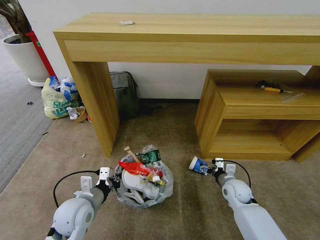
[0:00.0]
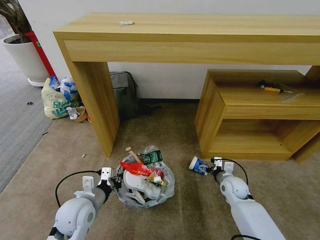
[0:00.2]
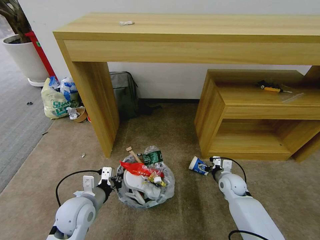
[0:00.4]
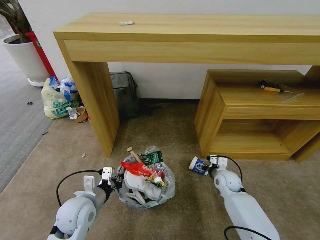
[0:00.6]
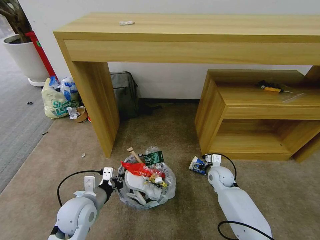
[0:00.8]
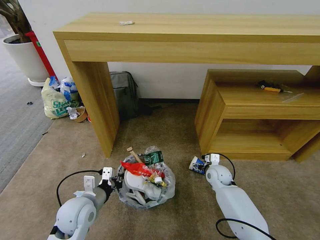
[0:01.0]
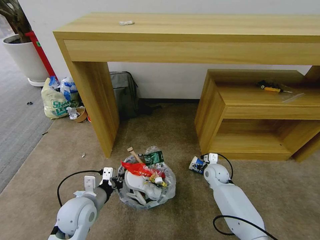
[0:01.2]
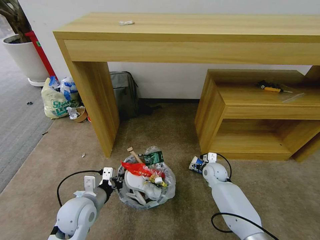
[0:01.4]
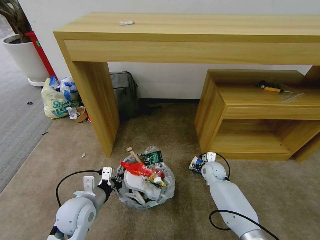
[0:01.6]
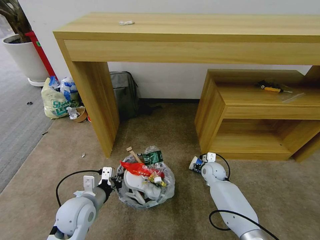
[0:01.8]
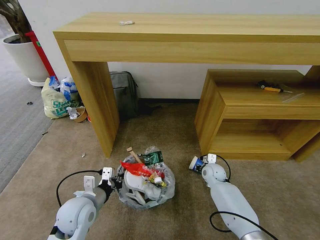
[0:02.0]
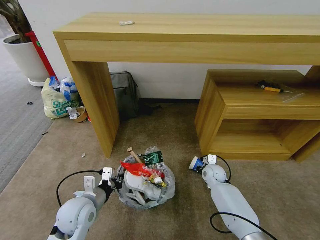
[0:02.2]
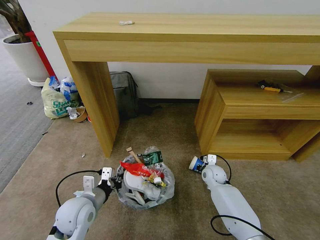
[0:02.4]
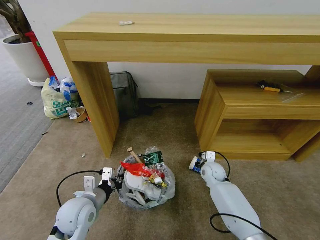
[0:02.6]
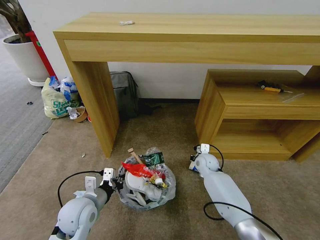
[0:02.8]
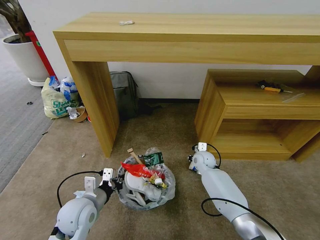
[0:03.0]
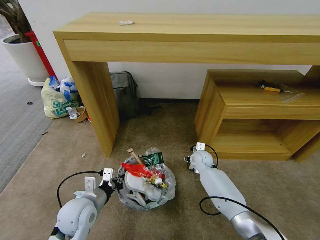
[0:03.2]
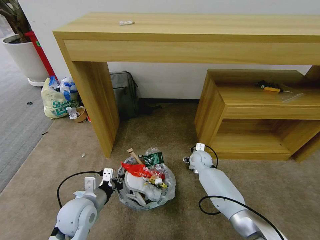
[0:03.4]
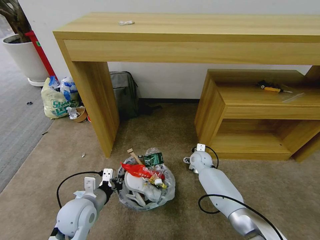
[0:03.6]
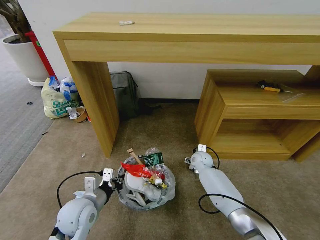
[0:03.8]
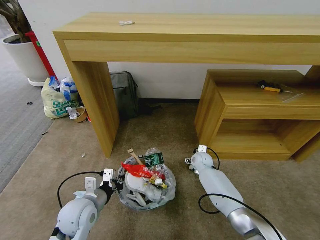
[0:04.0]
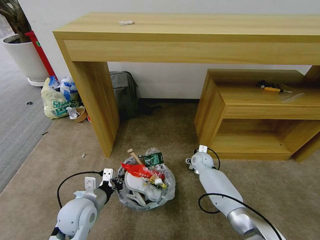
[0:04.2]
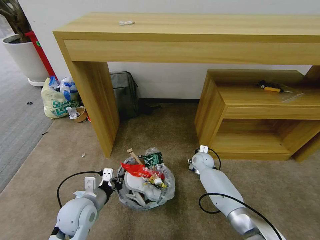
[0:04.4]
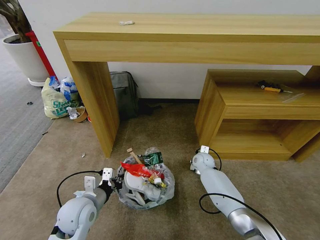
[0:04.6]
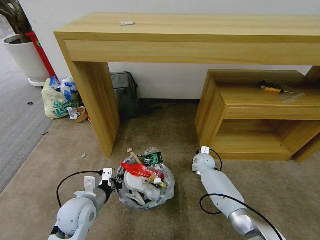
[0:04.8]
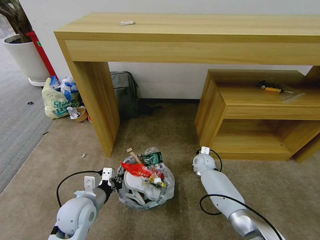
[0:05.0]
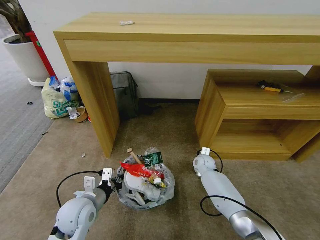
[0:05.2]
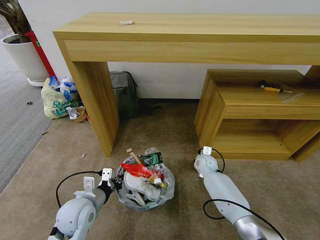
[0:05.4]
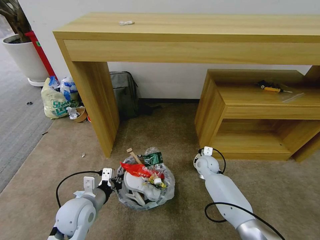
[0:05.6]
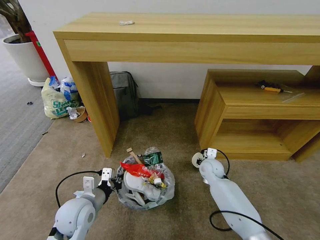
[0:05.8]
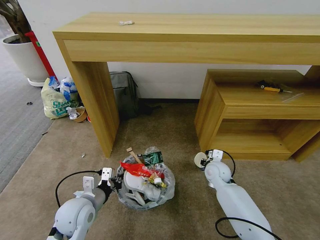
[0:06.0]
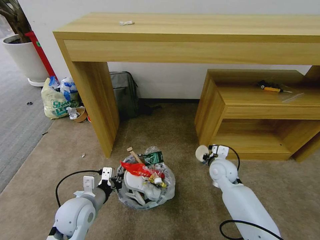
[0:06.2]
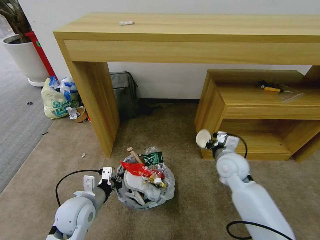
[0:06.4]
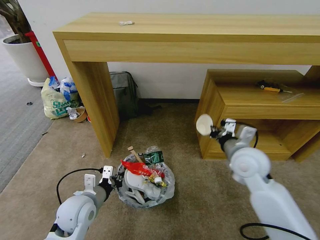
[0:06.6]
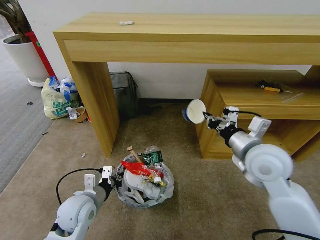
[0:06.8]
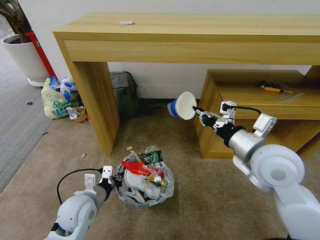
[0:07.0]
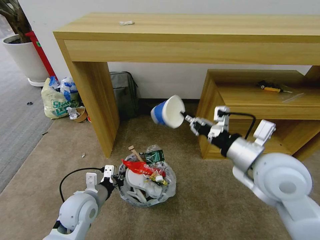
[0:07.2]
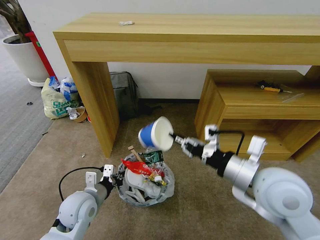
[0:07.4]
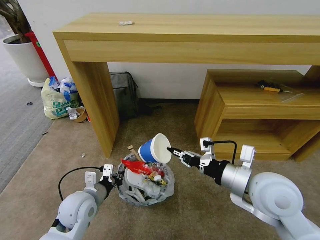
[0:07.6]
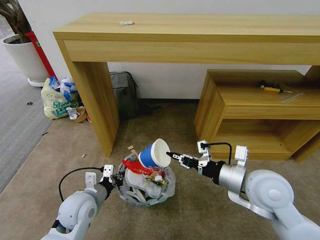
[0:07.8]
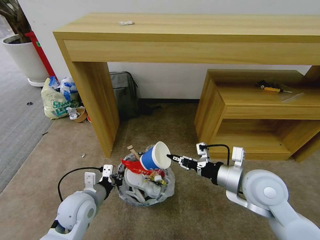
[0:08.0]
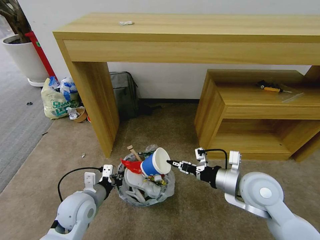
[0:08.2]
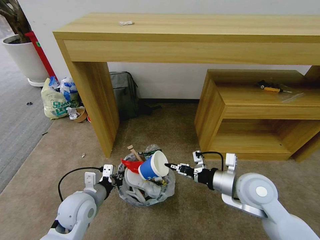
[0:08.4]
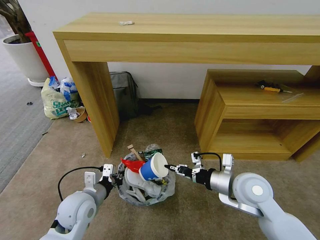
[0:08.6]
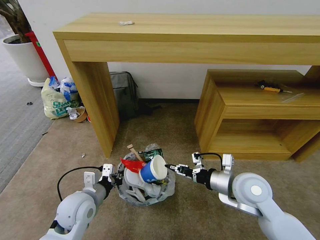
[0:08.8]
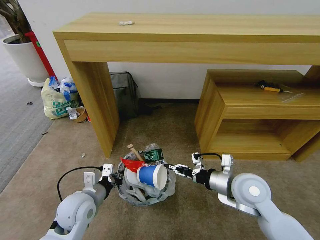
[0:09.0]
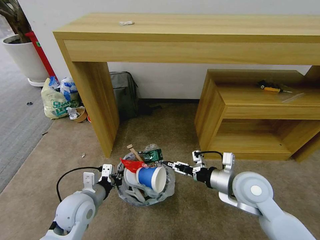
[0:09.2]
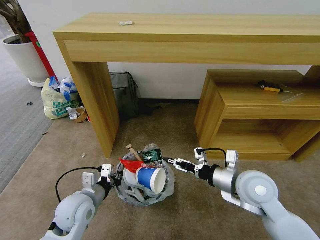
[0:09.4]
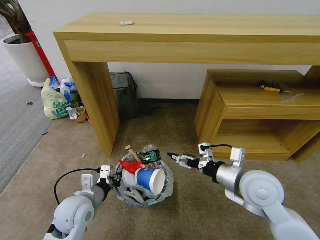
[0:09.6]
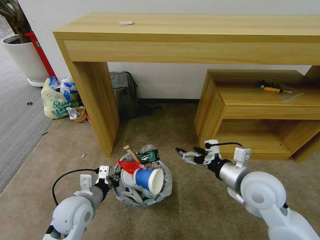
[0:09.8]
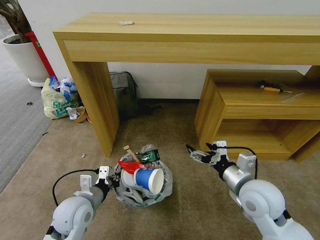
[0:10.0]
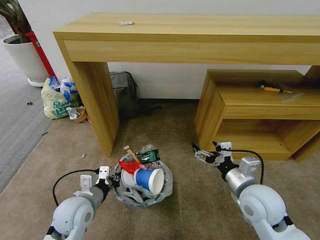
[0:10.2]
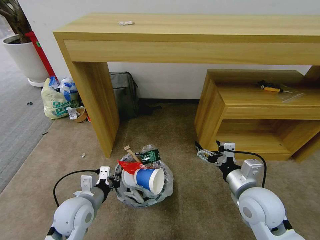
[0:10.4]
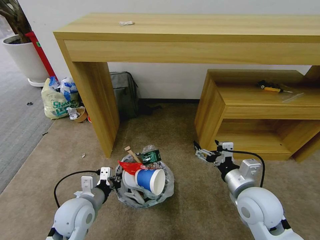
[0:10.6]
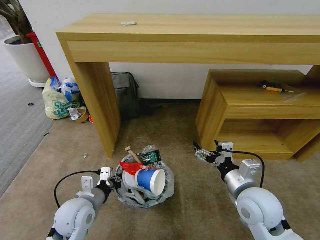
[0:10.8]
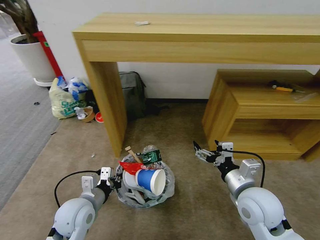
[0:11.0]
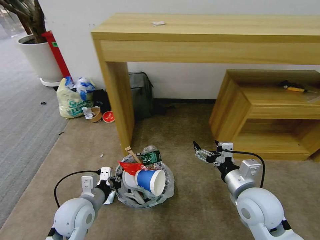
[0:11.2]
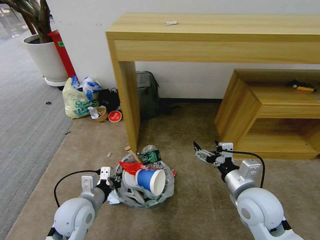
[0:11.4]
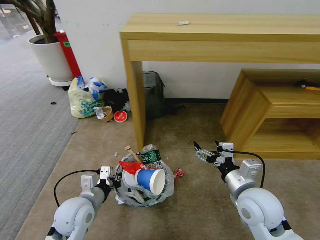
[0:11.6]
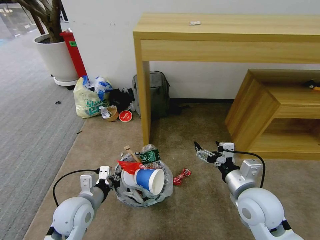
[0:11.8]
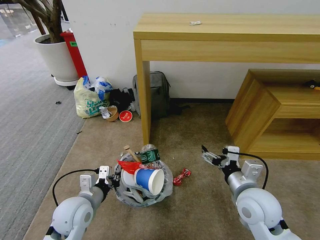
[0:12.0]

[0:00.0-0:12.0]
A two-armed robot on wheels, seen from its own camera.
Task of the whole recording: Pick up the trash bin and place the garbage on the floor into it.
0:00.0 to 0:01.6: The right gripper travels forward and to the left by about 10 cm.
0:01.6 to 0:03.0: The right gripper shifts by some 5 cm, and closes up.
0:03.0 to 0:04.4: The right gripper opens up.
0:04.4 to 0:06.0: The right gripper travels backward and upward by approximately 10 cm, and closes up.
0:06.0 to 0:07.6: The right gripper shifts approximately 30 cm upward and backward.
0:07.6 to 0:09.0: The right gripper goes approximately 10 cm downward.
0:09.0 to 0:10.4: The right gripper opens.

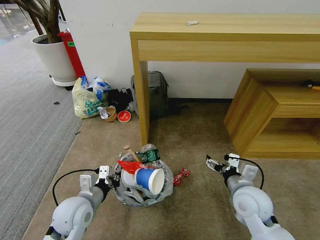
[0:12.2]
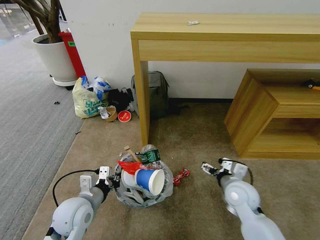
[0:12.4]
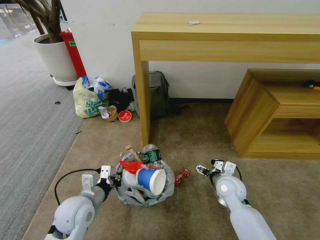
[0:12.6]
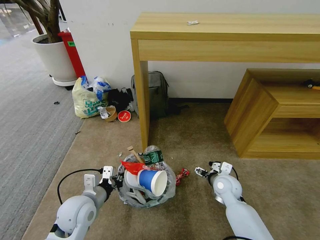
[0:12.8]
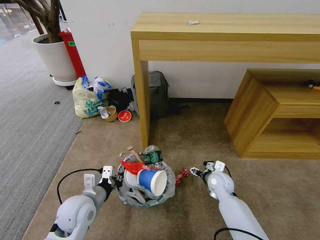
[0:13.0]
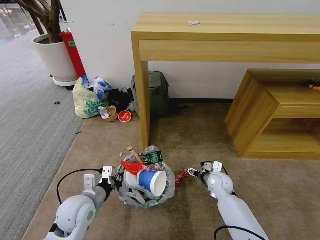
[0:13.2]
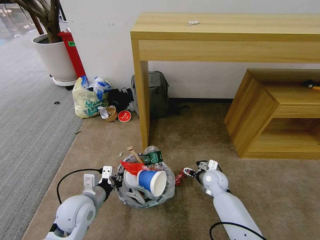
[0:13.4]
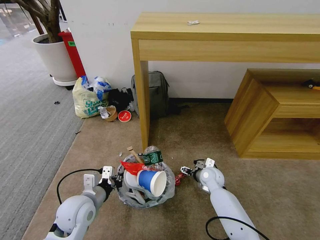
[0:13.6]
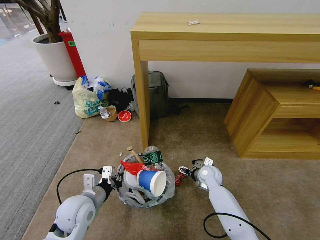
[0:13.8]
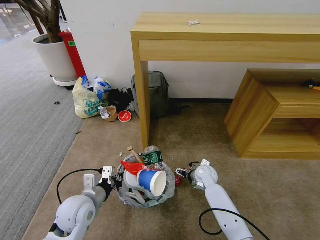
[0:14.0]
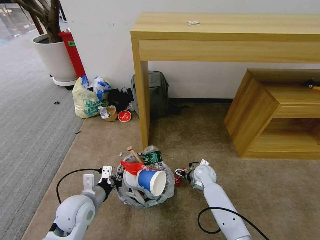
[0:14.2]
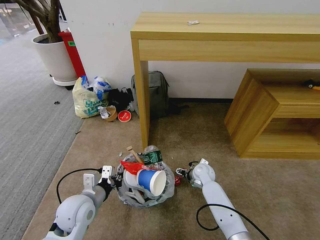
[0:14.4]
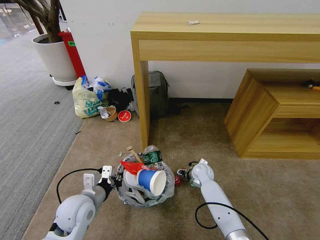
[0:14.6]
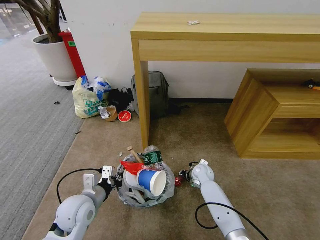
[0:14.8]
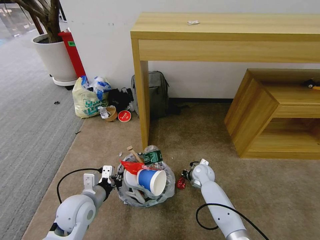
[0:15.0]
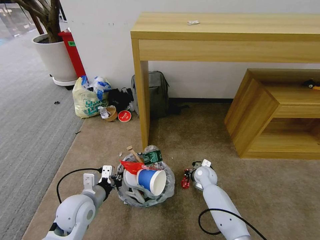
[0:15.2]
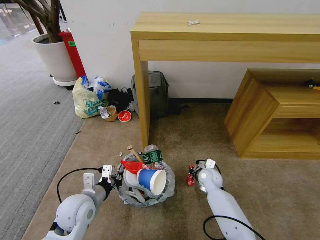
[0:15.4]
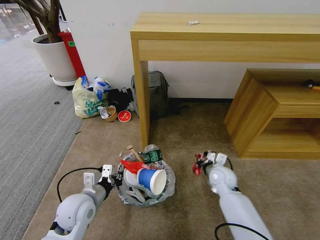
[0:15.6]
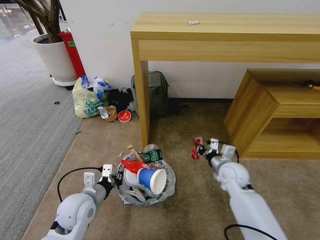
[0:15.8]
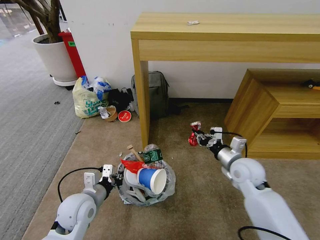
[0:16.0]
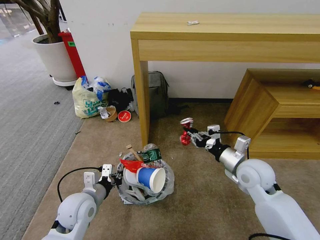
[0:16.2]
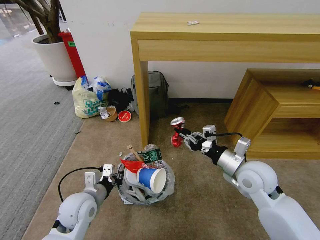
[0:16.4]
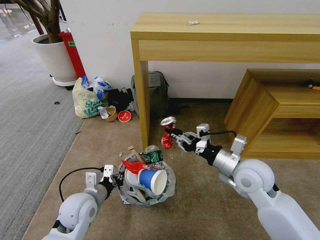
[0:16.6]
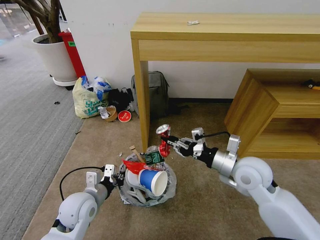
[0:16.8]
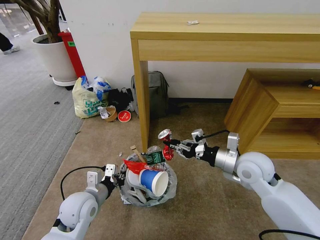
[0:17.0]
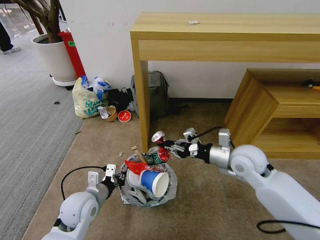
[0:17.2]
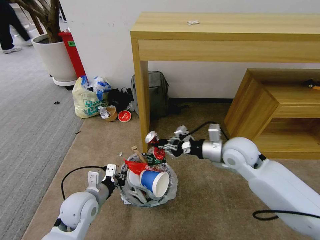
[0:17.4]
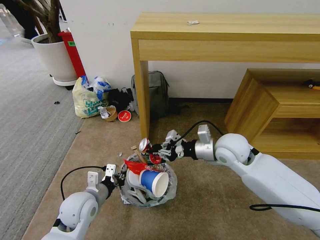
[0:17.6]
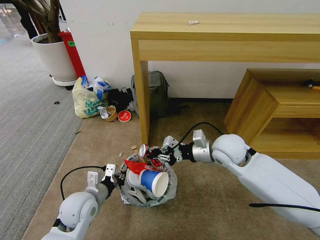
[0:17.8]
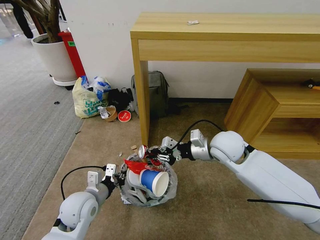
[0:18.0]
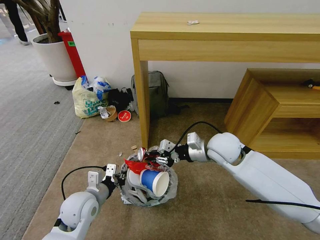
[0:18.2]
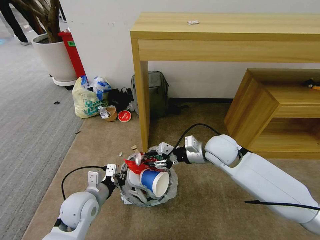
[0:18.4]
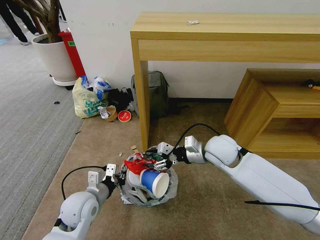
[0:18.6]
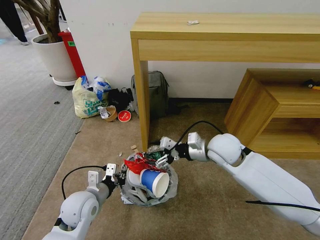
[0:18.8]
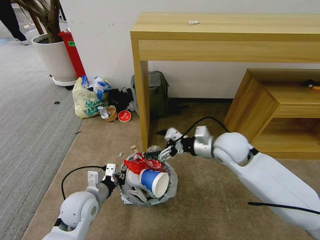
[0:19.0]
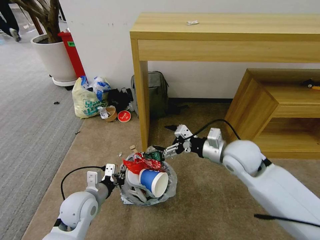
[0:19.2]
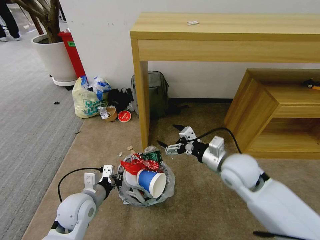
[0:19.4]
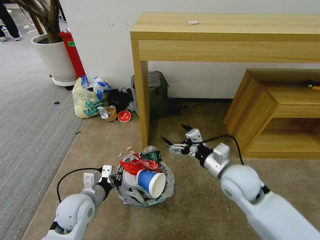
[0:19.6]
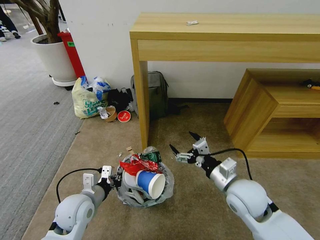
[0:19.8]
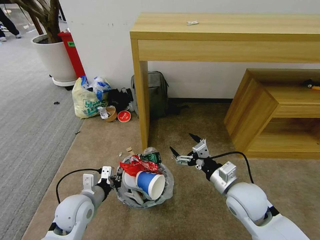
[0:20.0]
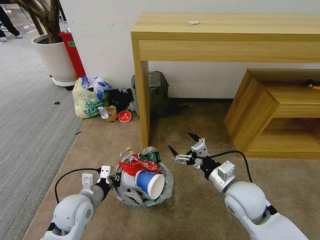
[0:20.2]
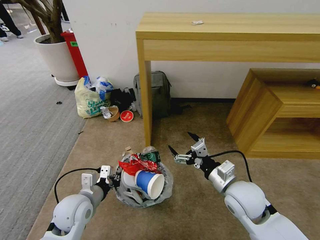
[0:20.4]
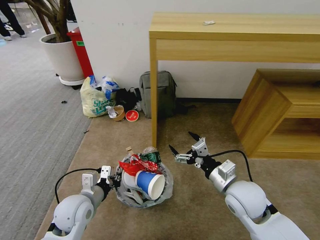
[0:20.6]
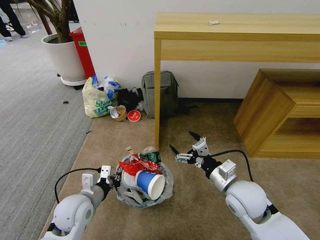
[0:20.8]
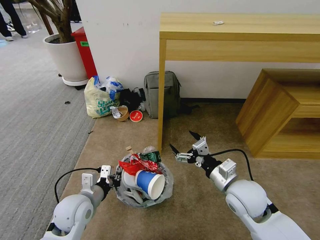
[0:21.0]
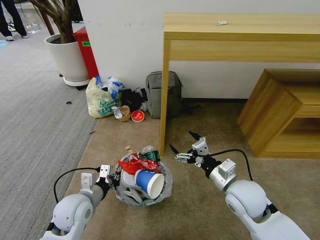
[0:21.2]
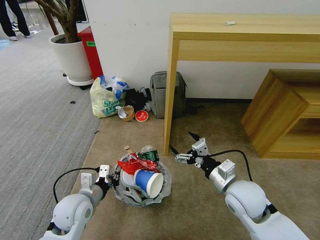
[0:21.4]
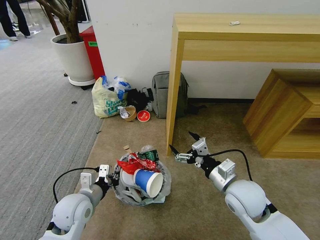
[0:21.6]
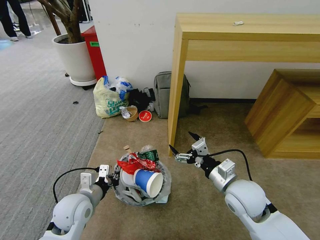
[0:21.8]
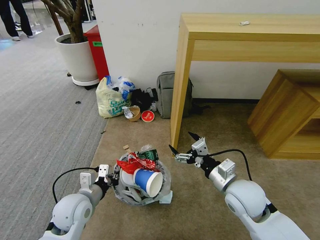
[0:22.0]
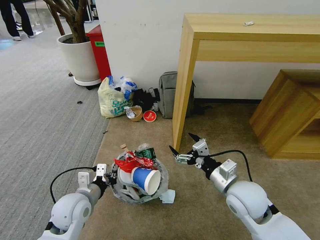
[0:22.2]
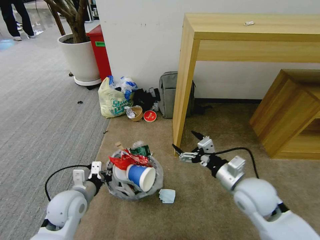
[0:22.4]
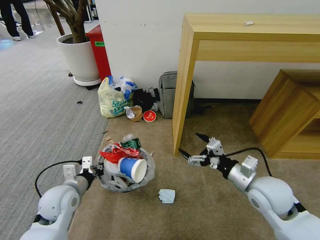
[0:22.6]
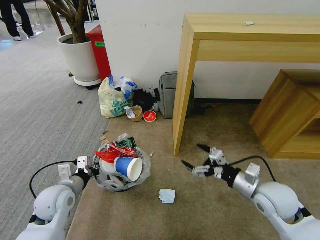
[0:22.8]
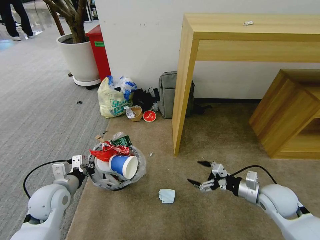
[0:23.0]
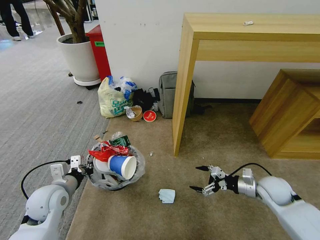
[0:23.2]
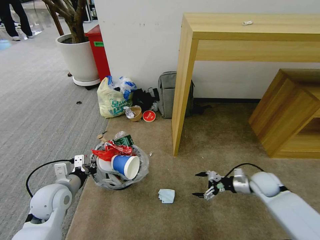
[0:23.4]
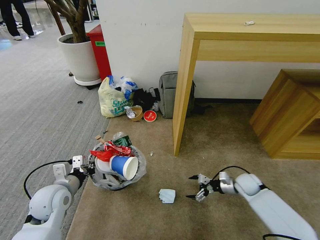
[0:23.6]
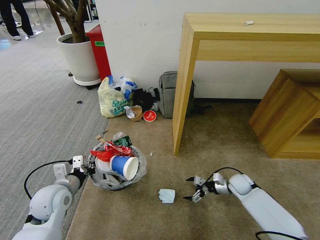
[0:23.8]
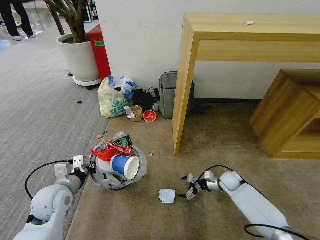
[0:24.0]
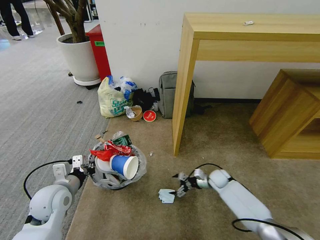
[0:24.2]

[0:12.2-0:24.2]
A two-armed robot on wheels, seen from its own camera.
Task of the whole recording: Pick up the trash bin and place the garbage on the floor into it.
0:12.2 to 0:13.8: The right gripper heads forward and downward, covering roughly 20 cm.
0:13.8 to 0:15.2: The right gripper closes its fingers.
0:15.2 to 0:16.6: The right gripper heads upward and backward, covering approximately 25 cm.
0:16.6 to 0:18.2: The right gripper goes about 10 cm forward and to the left.
0:18.2 to 0:19.8: The right gripper moves backward and downward, approximately 15 cm, and opens its fingers.
0:21.2 to 0:22.6: The left gripper moves about 5 cm, while the right gripper shifts some 5 cm to the right.
0:22.6 to 0:24.2: The right gripper moves downward and forward, about 30 cm.
